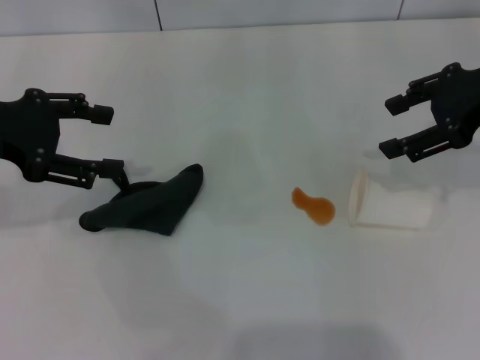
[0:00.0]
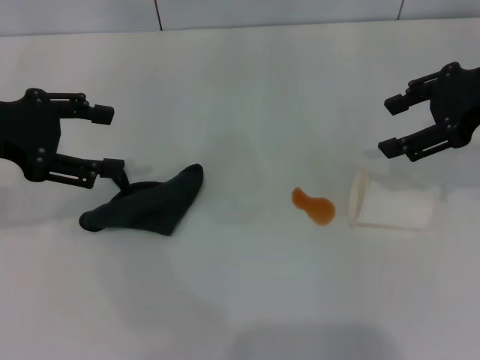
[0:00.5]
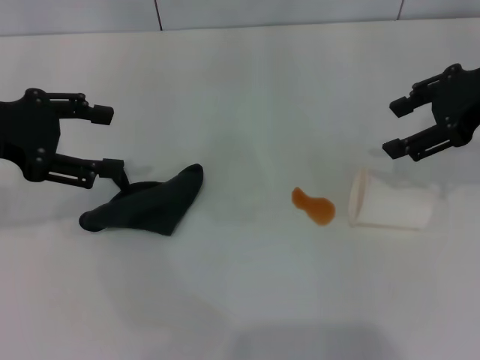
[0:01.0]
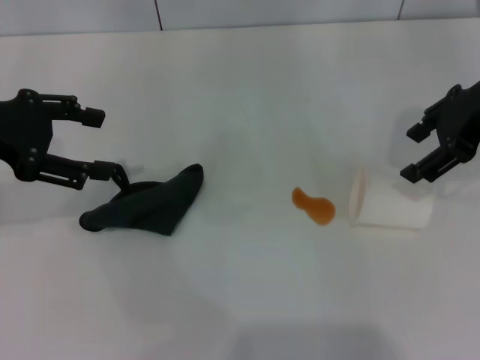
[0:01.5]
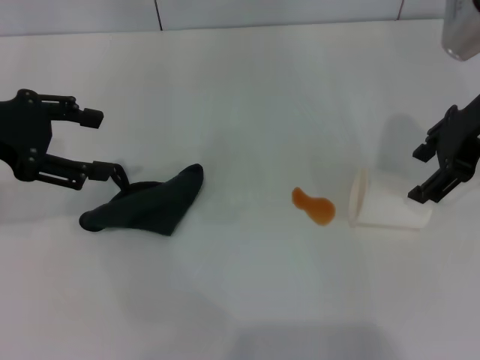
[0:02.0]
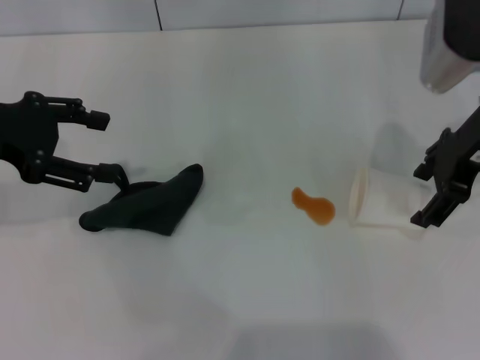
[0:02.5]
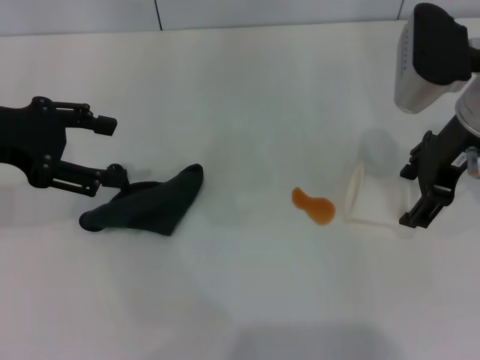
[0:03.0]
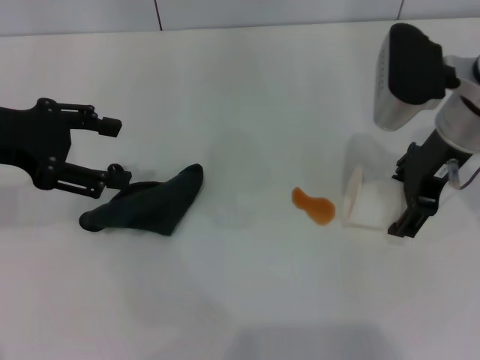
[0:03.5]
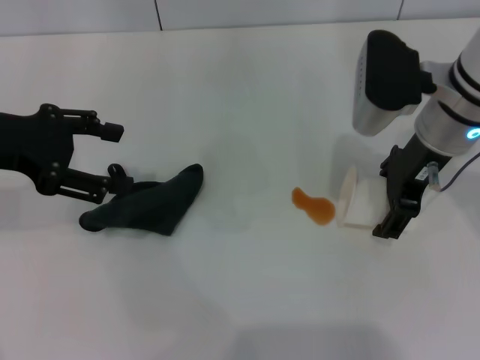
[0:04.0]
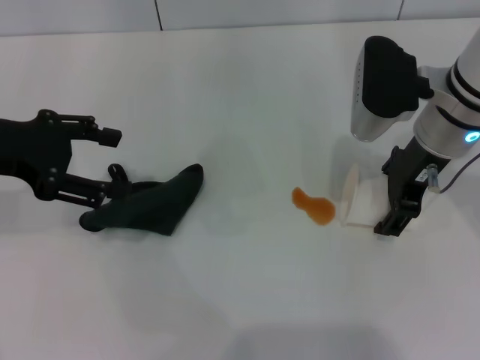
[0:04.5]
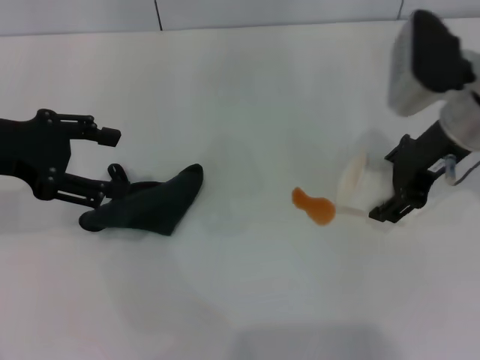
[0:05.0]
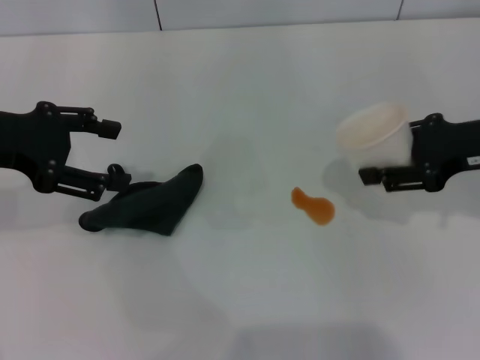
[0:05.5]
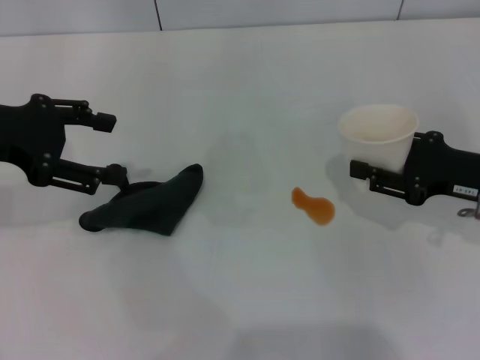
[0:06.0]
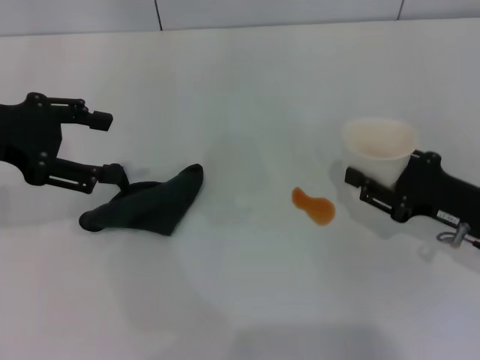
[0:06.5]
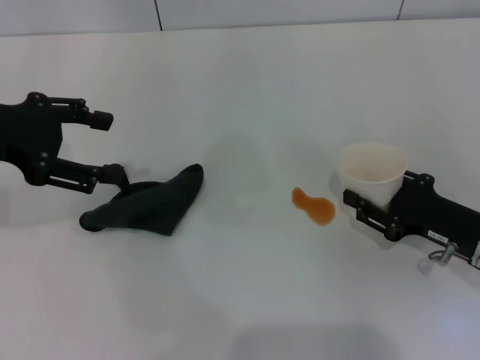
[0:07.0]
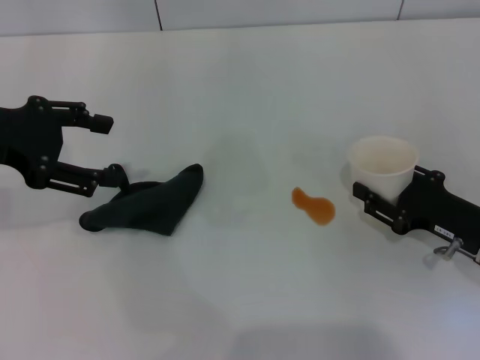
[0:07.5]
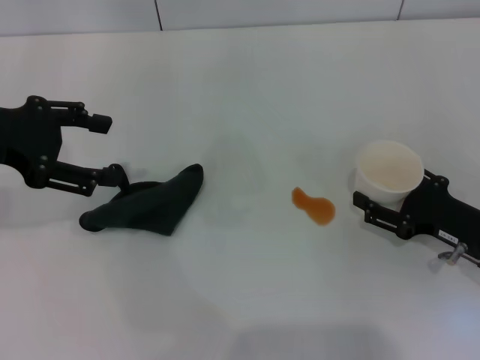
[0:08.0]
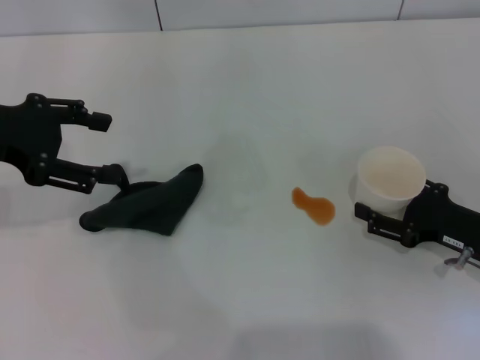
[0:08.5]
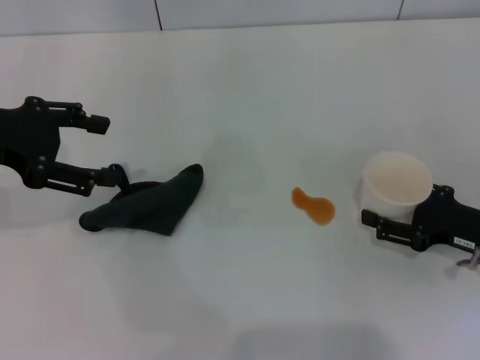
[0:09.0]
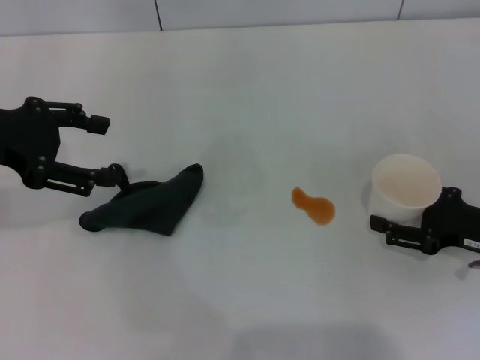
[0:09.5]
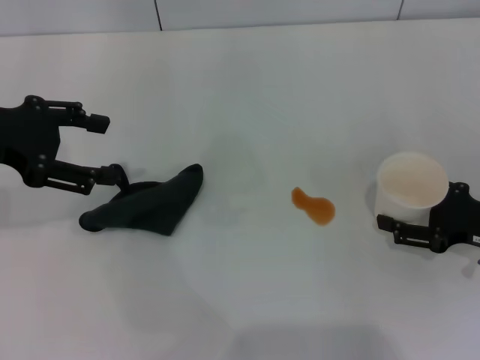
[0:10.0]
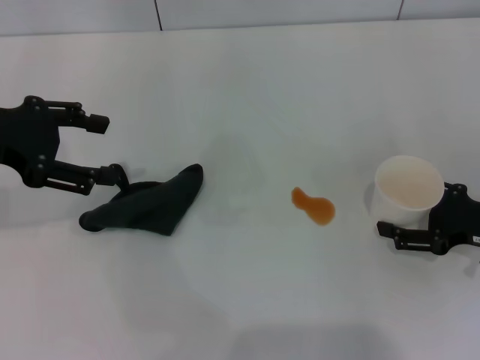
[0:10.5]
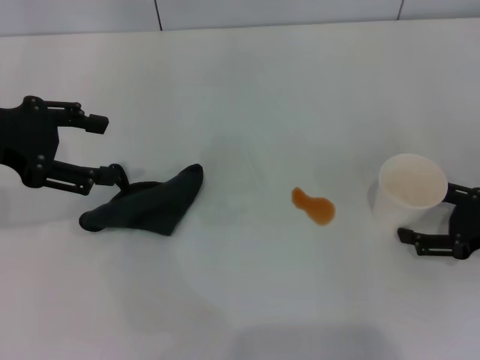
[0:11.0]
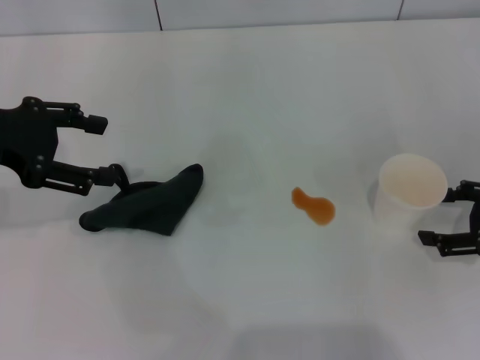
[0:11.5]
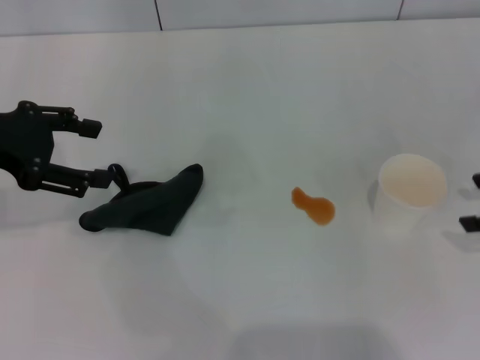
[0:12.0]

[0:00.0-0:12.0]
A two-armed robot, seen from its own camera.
Step, 0:00.0 to 0:04.5: Grasp the paper cup with the right gripper.
Step, 0:05.0 to 0:11.0: Stand the paper cup upright with the right gripper.
0:02.0 to 0:04.0: The right gripper goes some 10 cm to the left and downward.
0:04.0 to 0:06.0: The right gripper heads to the right, downward and backward, covering approximately 15 cm, and closes.
0:06.0 to 0:08.0: The right gripper is displaced downward by roughly 5 cm, and opens.
0:08.0 to 0:10.0: There are only small adjustments of the grippers.
0:10.0 to 0:12.0: The right gripper is displaced upward by about 10 cm.

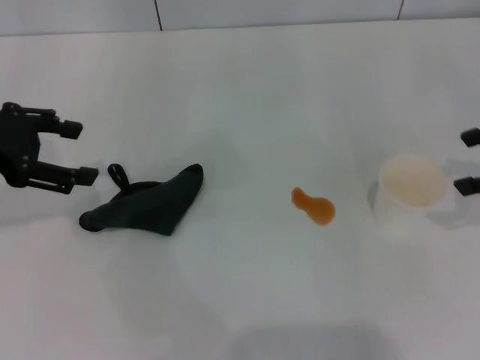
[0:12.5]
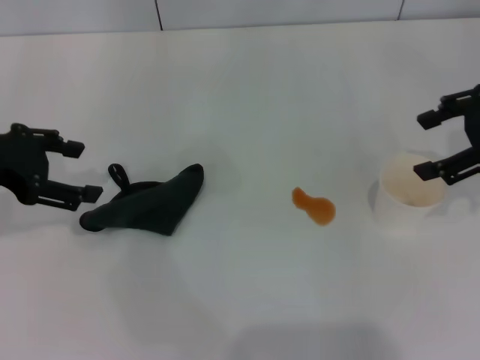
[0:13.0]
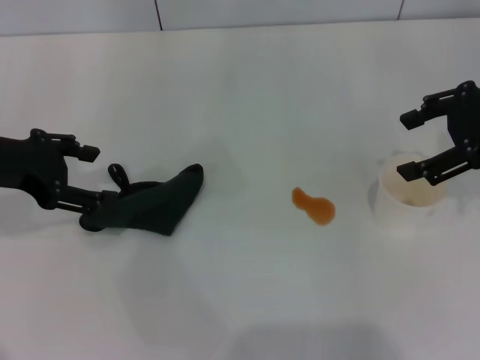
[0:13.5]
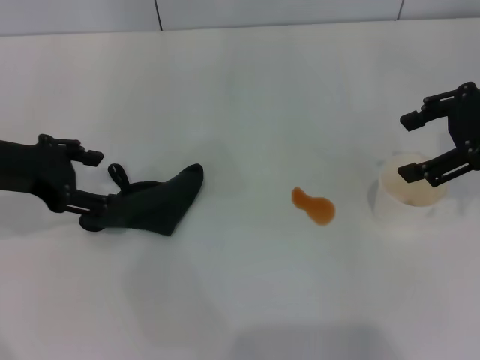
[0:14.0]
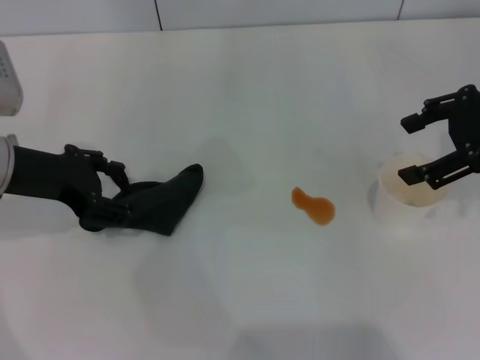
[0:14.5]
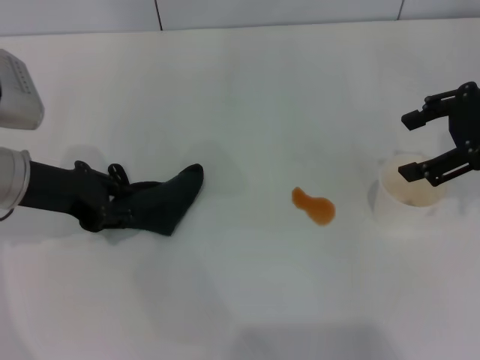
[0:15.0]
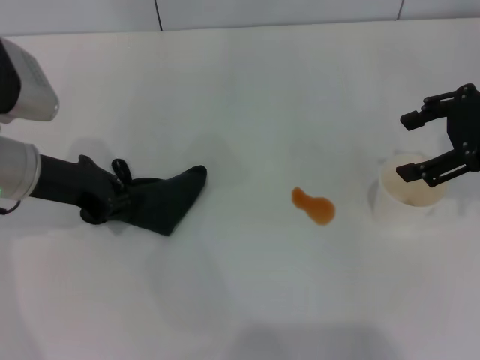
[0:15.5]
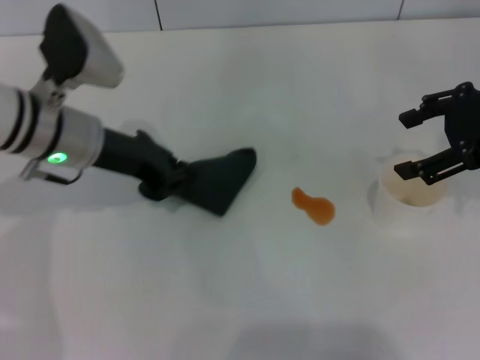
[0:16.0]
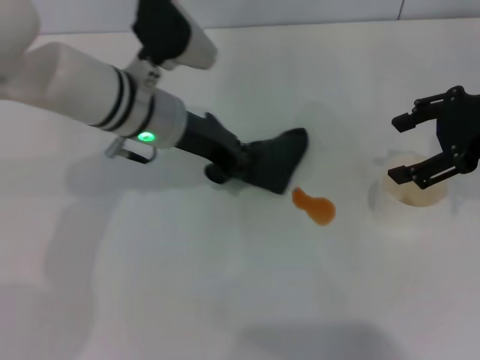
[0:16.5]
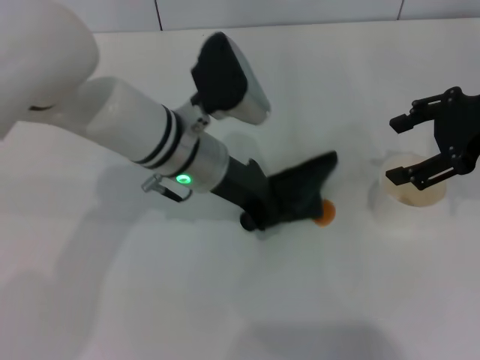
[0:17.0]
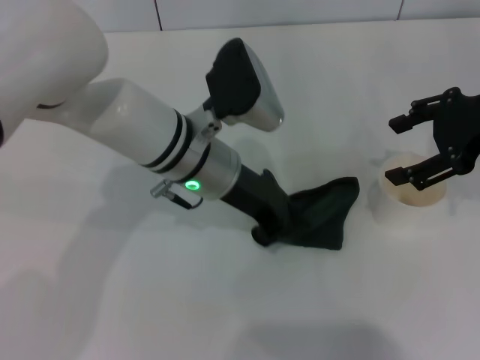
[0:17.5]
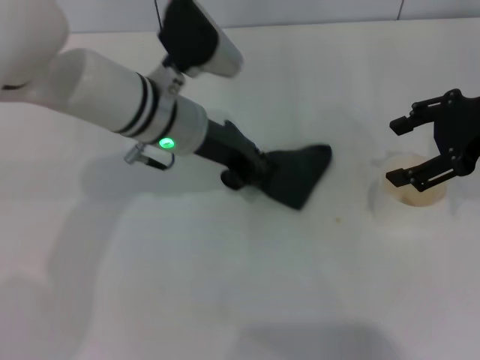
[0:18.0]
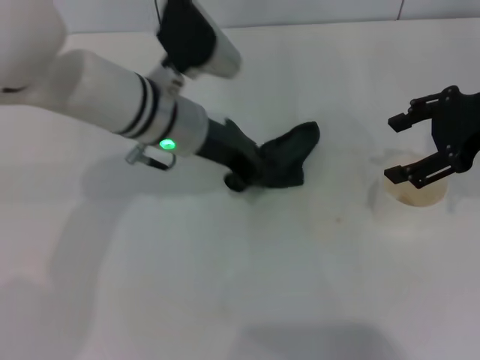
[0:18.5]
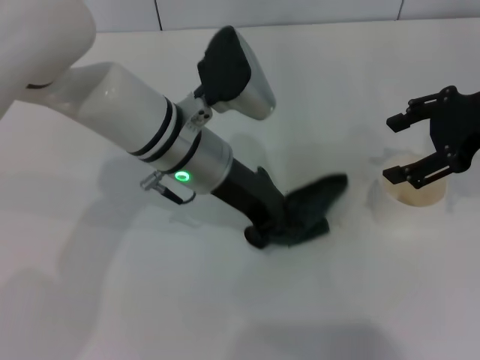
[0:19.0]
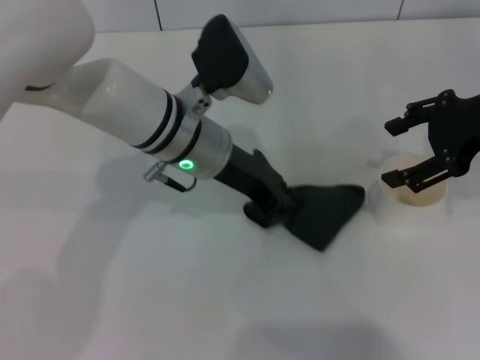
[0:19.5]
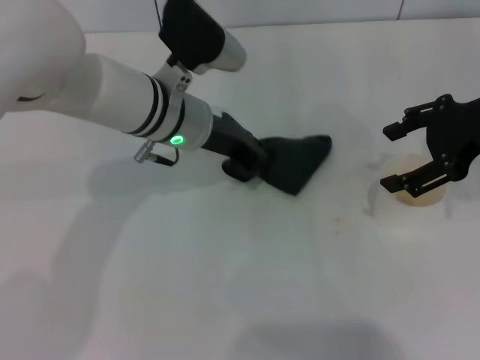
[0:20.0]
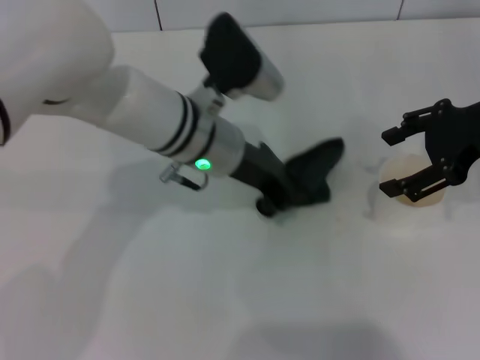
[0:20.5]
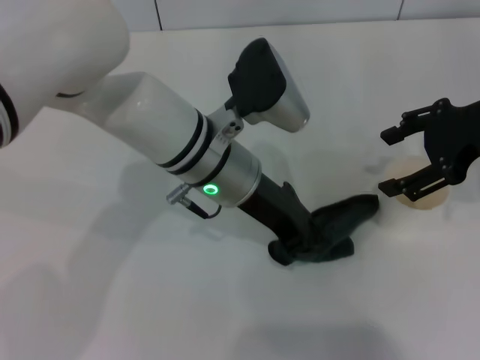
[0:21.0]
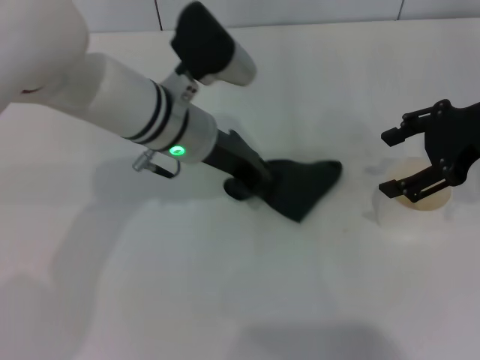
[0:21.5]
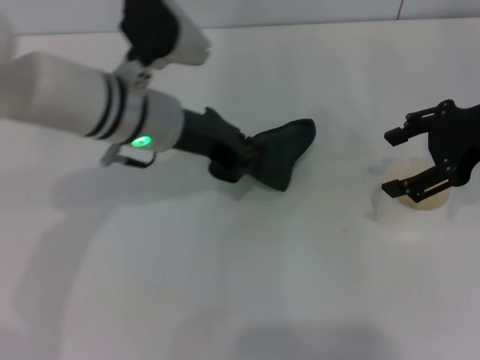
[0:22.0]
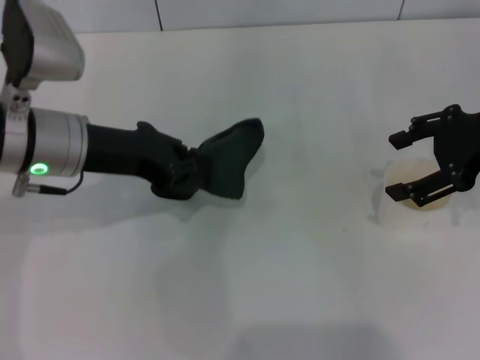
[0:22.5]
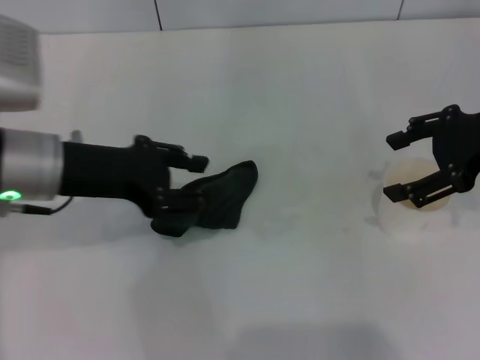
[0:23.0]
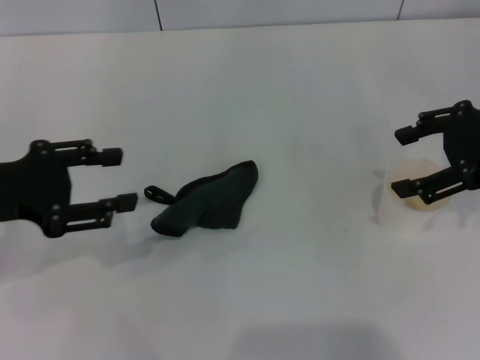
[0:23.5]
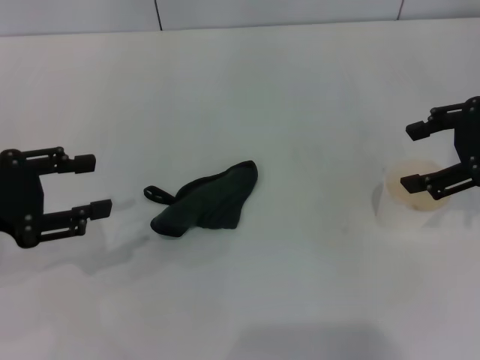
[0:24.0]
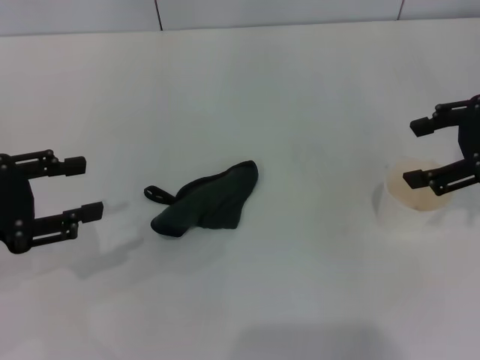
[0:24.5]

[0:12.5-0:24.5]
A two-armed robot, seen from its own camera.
Step, 0:12.5 to 0:15.5: Grasp the rag with the left gripper.
Step, 0:16.0 to 0:21.0: Wipe the stains off the table with the left gripper.
Step, 0:21.5 to 0:23.0: Place the rag on the table with the left gripper.
0:12.5 to 0:14.5: The left gripper heads downward and to the right, covering approximately 10 cm; the right gripper ends up about 5 cm from where it was.
0:14.5 to 0:16.5: The left gripper moves to the right, some 15 cm, and closes its fingers.
0:20.5 to 0:22.5: The left gripper shifts about 15 cm to the left.
0:22.5 to 0:24.5: The left gripper moves to the left and backward, about 15 cm, and opens its fingers.
